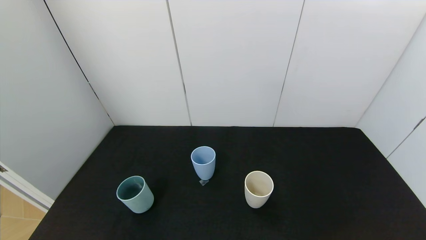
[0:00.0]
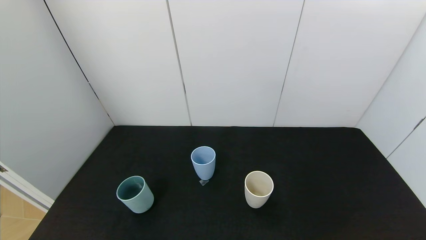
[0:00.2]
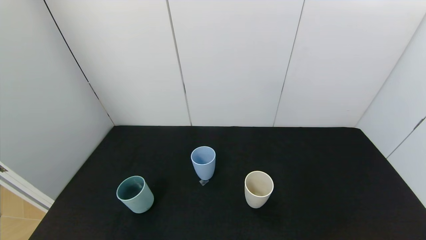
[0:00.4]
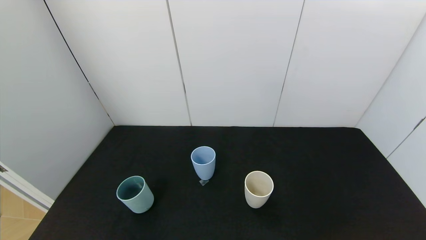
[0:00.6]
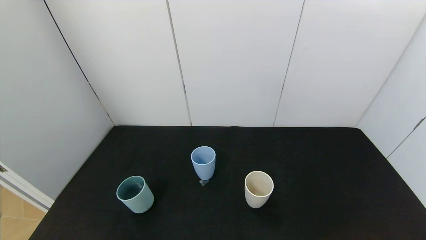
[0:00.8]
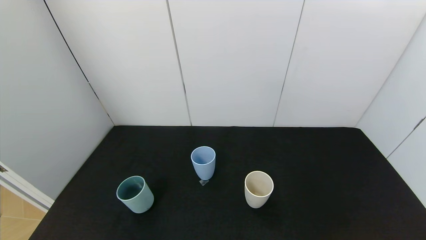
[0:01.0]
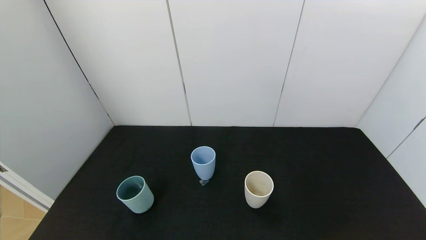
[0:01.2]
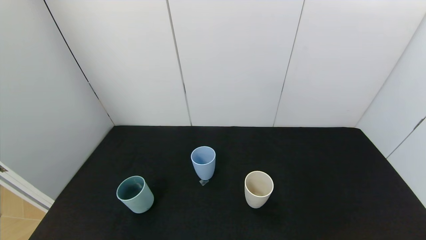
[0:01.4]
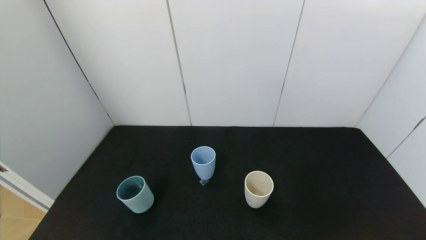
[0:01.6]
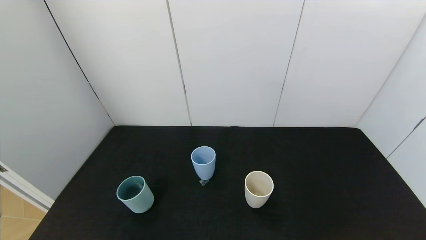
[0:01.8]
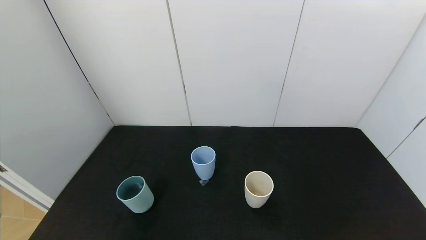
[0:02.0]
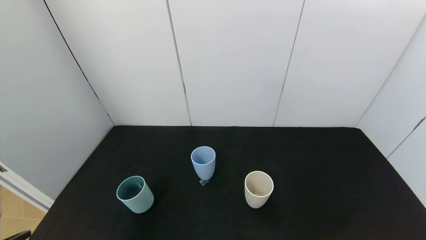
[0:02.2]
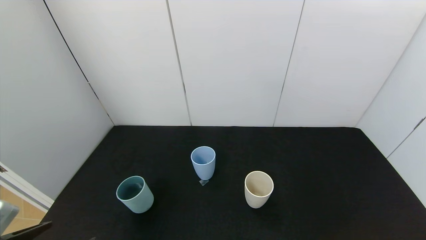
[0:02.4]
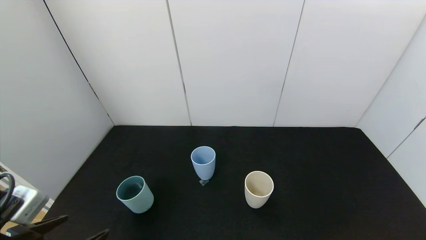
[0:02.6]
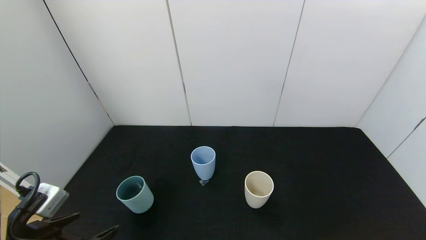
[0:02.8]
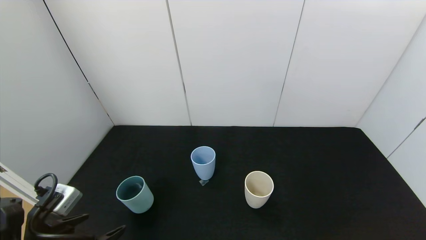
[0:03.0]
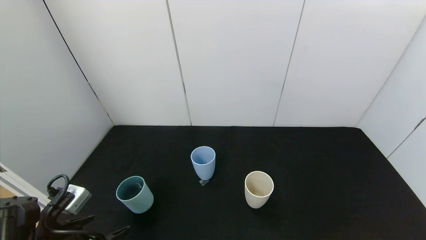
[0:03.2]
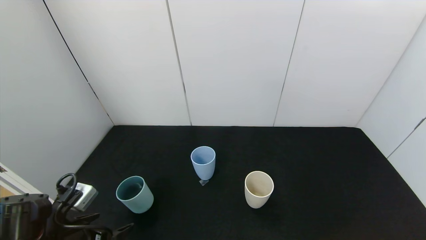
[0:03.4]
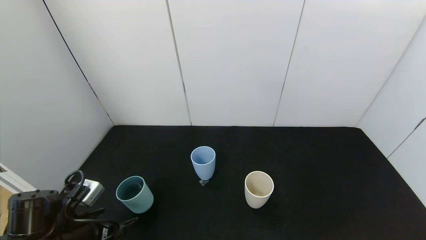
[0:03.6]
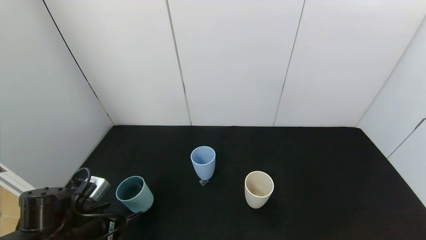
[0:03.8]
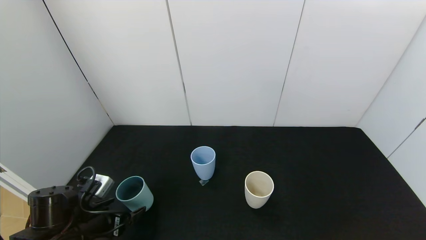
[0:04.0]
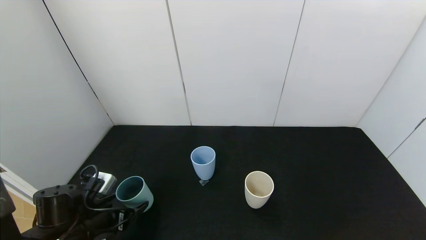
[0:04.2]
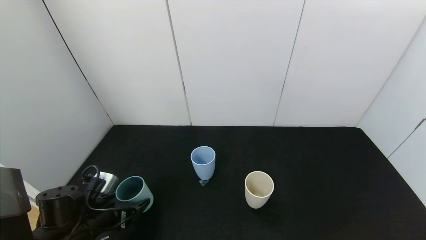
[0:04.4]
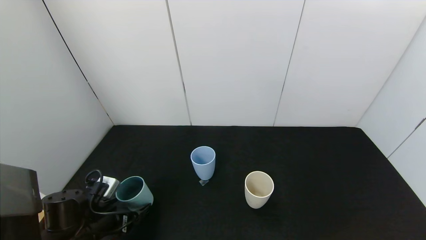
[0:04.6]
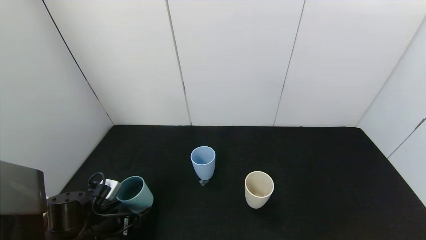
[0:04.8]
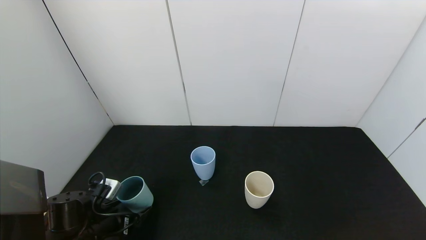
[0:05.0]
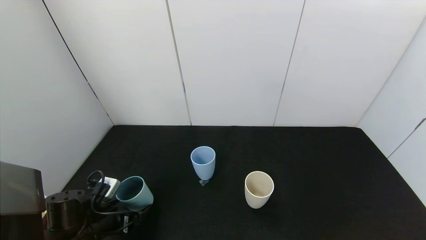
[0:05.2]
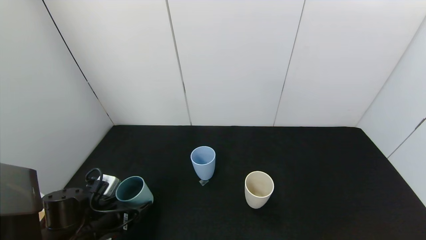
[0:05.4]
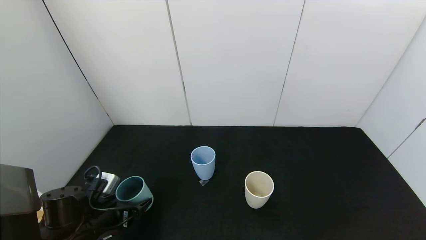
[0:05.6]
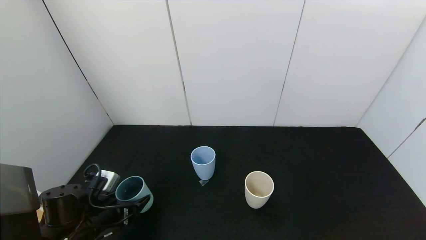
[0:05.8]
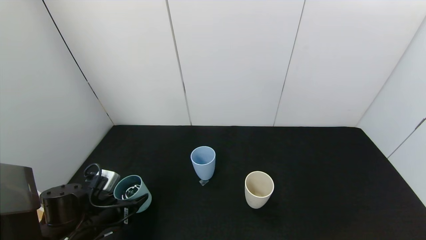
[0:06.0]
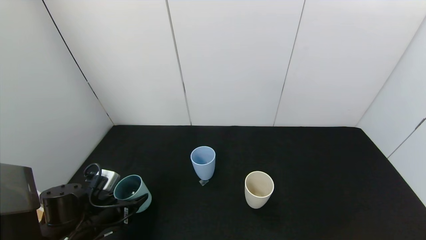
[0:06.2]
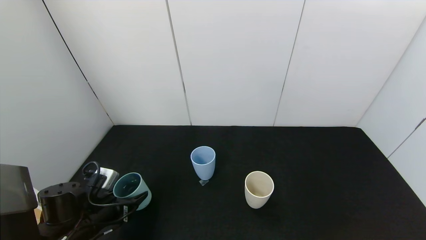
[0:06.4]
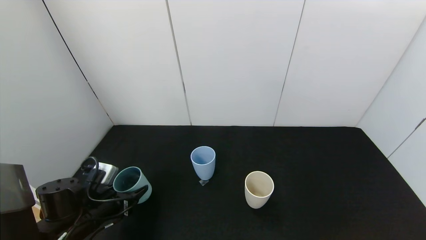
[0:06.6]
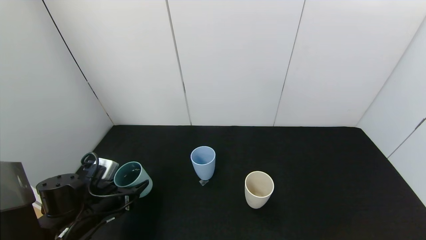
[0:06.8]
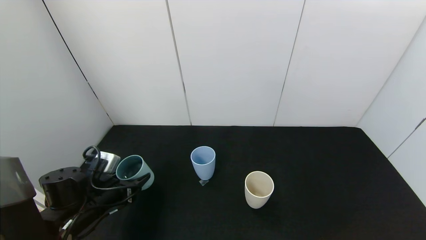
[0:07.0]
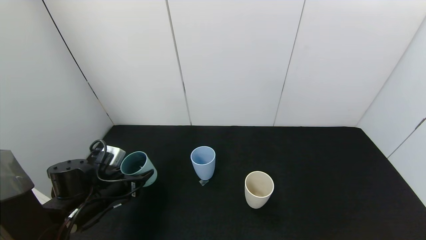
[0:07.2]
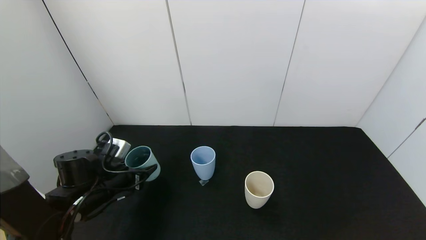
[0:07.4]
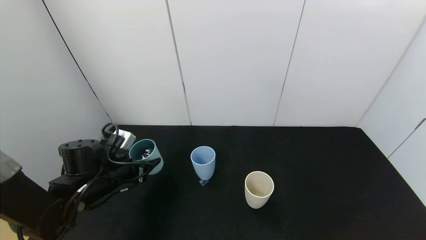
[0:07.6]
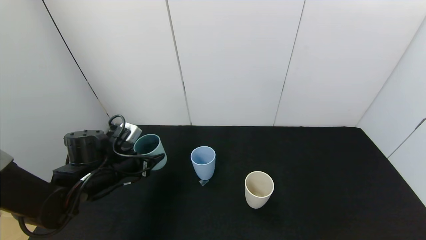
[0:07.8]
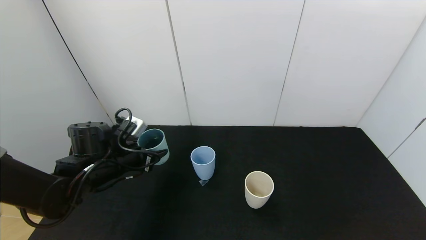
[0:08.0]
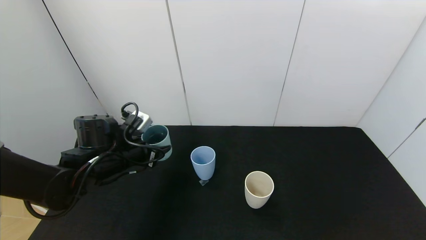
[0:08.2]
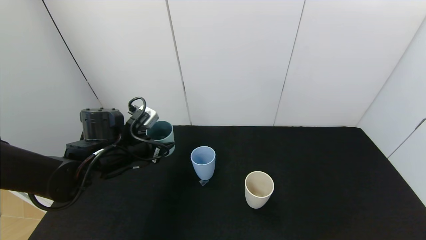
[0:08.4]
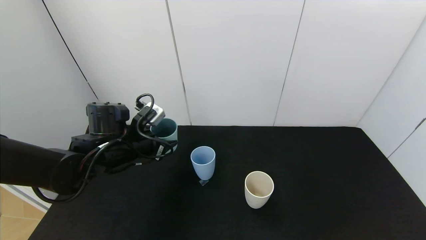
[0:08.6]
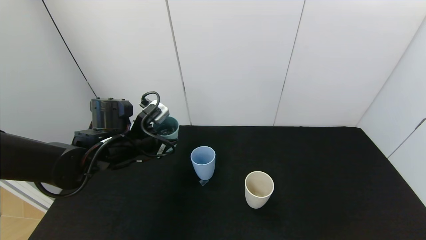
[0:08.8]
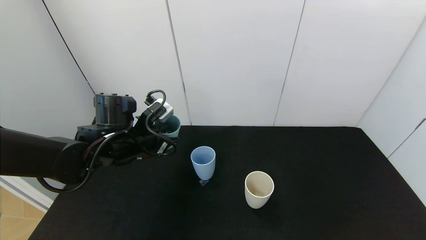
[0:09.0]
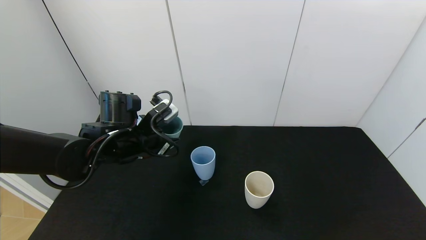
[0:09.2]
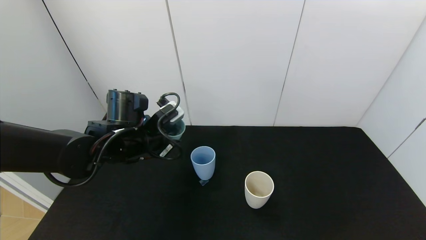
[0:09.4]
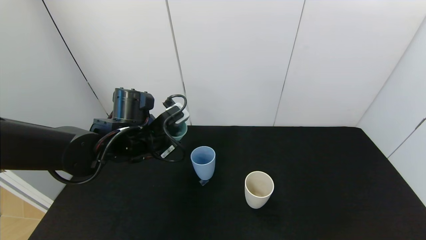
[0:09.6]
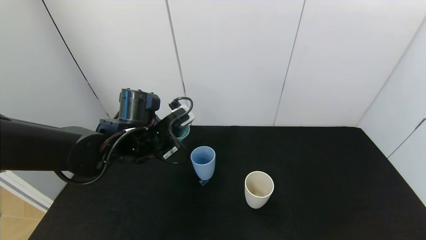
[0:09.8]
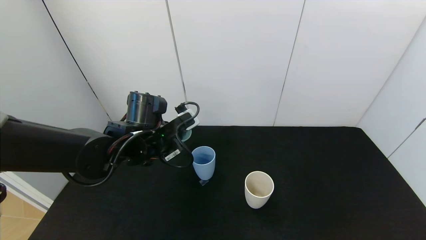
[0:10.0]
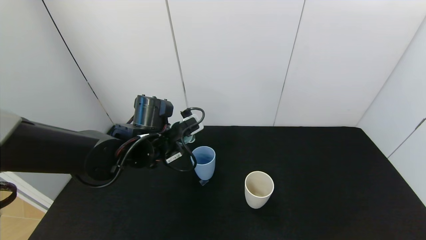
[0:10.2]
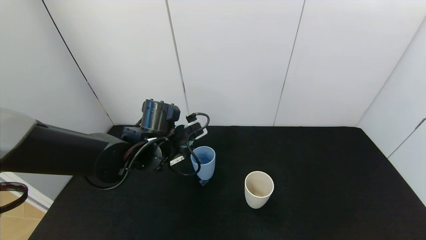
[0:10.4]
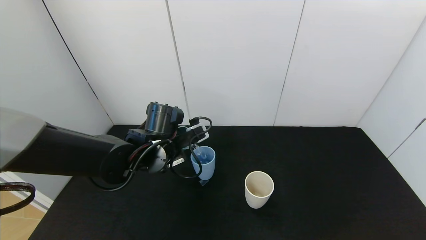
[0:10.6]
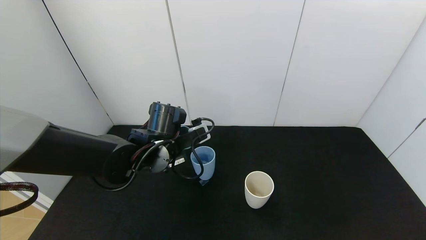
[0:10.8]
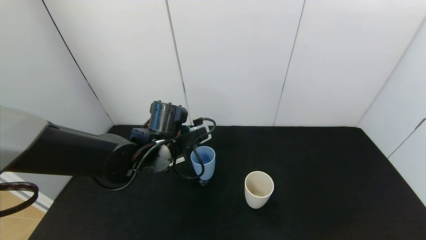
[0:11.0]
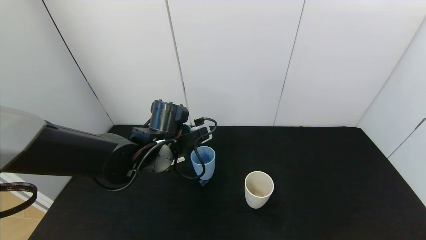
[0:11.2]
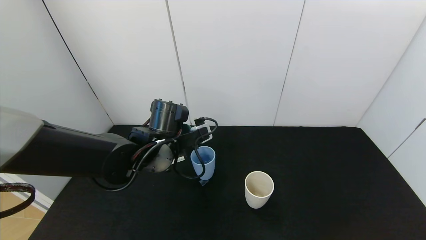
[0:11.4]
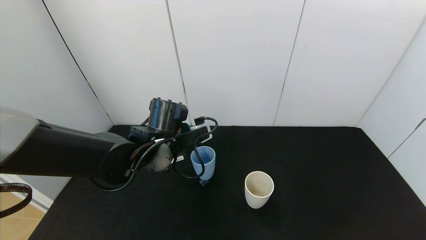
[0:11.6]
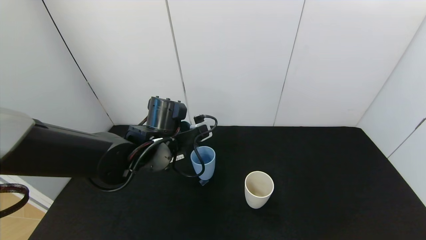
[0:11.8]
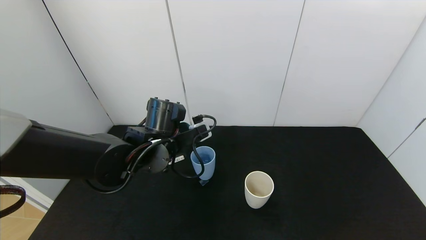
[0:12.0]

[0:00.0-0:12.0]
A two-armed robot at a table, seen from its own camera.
Task of the whole recording: use the gripper to pour the water into the other two cups on black table.
Step, 0:00.0 to 0:06.0: Grasp the green cup with the left gripper.
0:01.6 to 0:03.0: The left gripper is displaced forward by some 15 cm.
0:03.0 to 0:04.4: The left gripper heads forward and downward, covering about 10 cm.
0:04.4 to 0:06.0: The left gripper closes its fingers.
0:06.0 to 0:07.6: The left gripper travels forward and upward by some 10 cm.
0:07.6 to 0:09.0: The left gripper travels upward and to the right by about 10 cm.
0:09.0 to 0:10.4: The left gripper is displaced to the right by about 5 cm.
0:10.4 to 0:12.0: There are only small adjustments of the grippers.

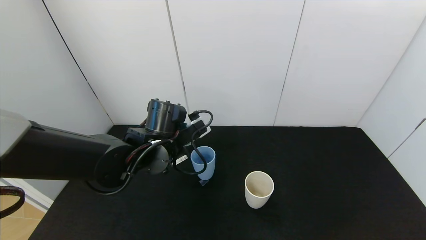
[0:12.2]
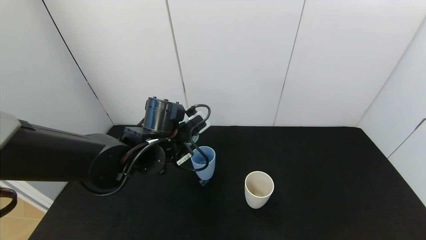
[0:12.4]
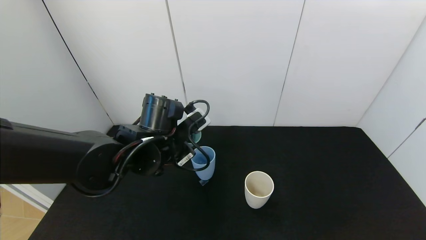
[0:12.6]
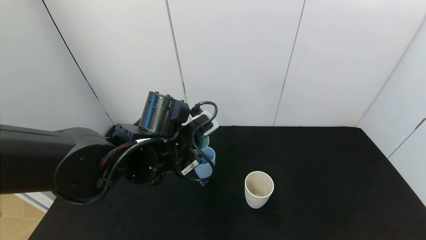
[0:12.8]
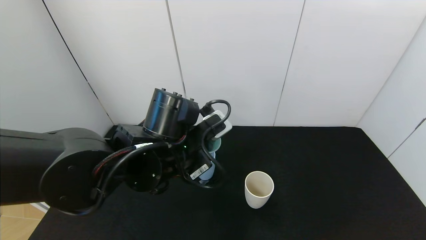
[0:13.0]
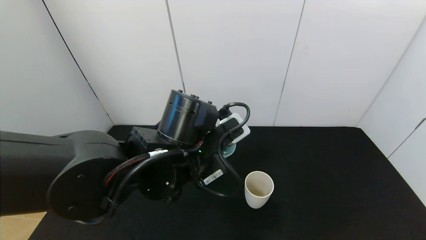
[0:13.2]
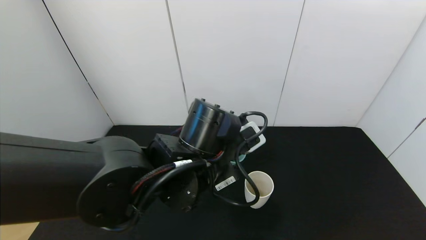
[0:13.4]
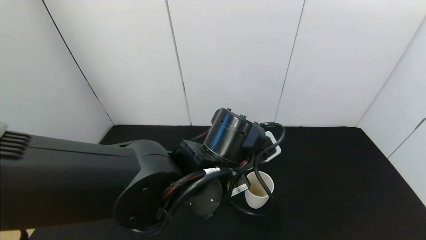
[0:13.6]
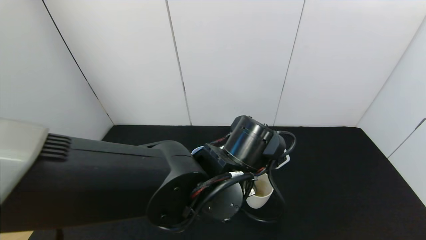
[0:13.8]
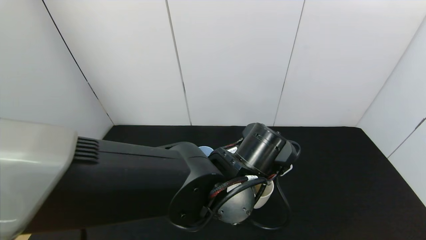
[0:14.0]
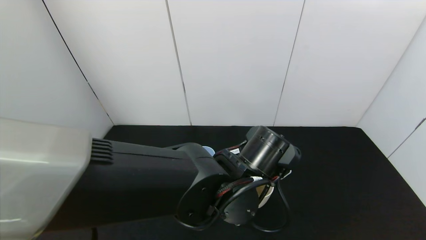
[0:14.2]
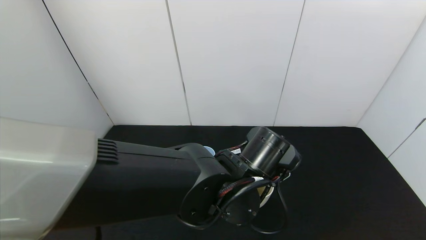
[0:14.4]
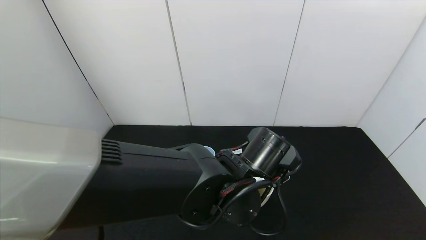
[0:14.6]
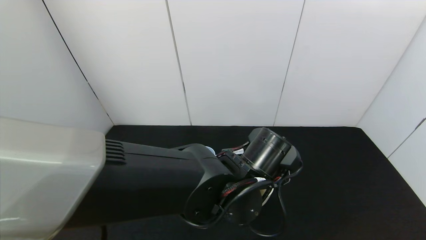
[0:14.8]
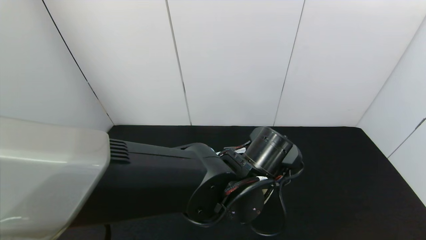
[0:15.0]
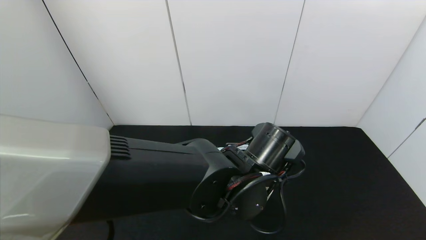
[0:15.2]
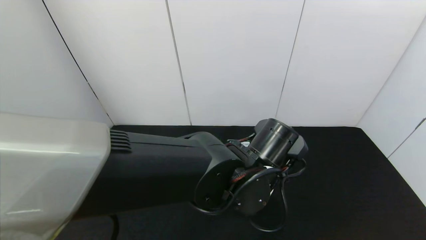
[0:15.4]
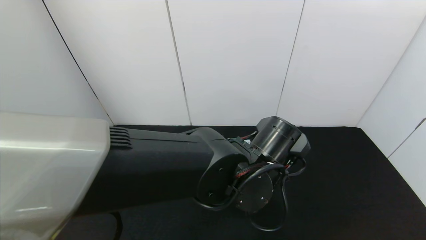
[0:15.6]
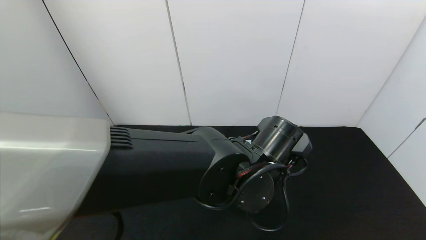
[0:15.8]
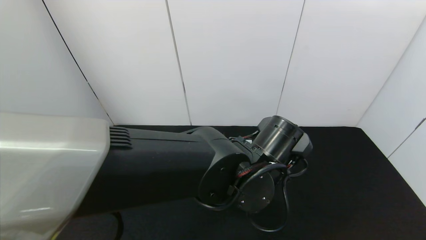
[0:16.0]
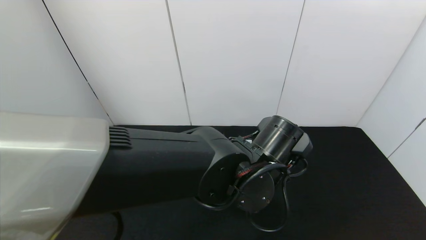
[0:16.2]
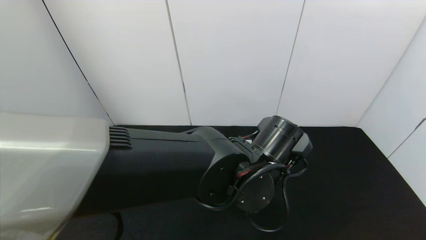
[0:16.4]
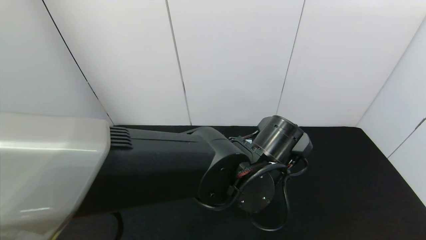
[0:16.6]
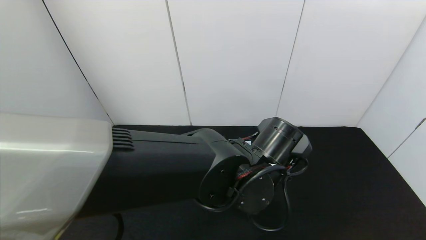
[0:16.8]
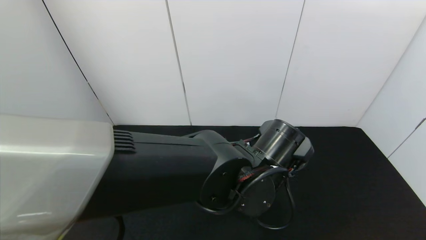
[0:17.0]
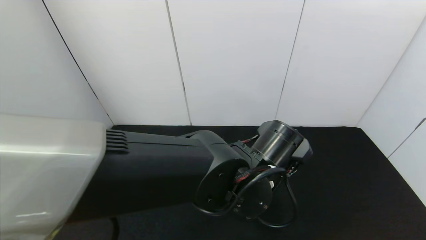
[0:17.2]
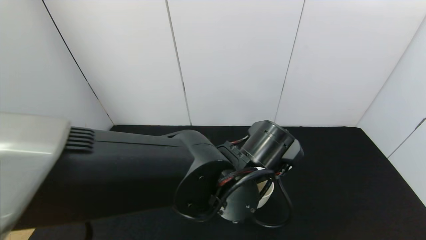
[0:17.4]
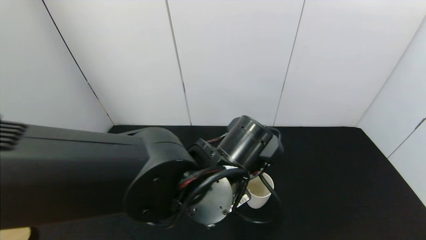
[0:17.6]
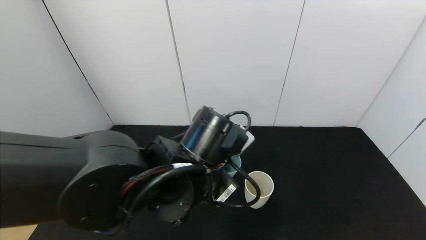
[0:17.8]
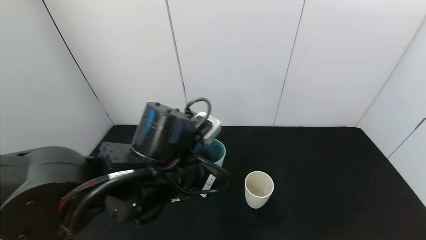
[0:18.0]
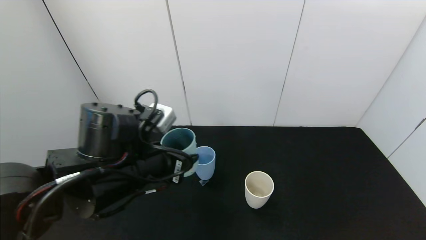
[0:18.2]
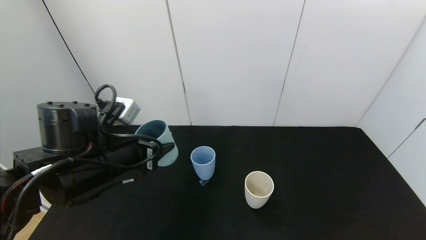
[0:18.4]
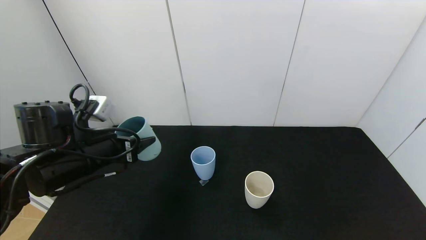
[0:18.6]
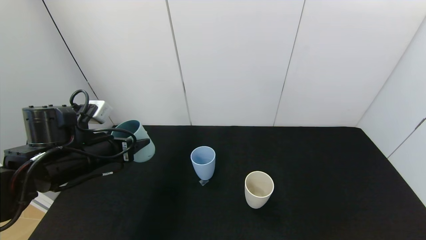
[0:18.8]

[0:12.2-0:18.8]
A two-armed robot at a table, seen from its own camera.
Task of the whole recording: use the gripper to pour the water into the other two cups on black table.
Step, 0:12.4 to 0:17.4: Pour water from green cup to white cup with the left gripper.
0:12.2 to 0:13.8: The left gripper is displaced to the right and backward by approximately 15 cm.
0:15.4 to 0:17.2: The grippers move only a little.
0:17.2 to 0:18.8: The left gripper shifts some 30 cm to the left.
